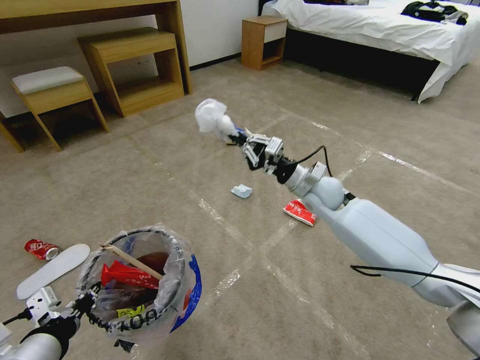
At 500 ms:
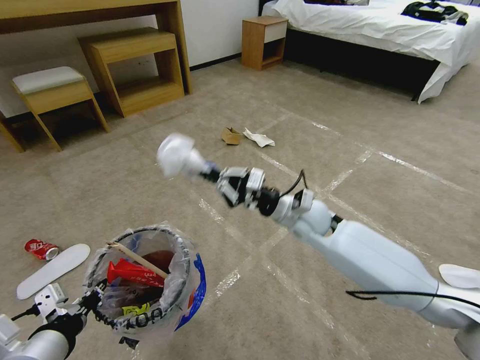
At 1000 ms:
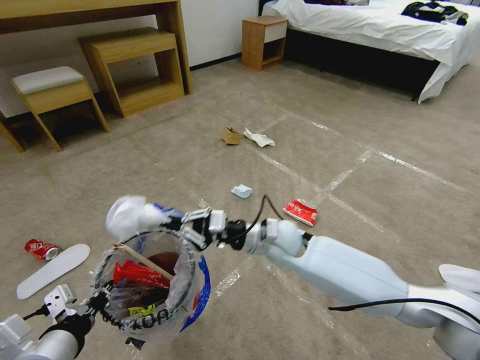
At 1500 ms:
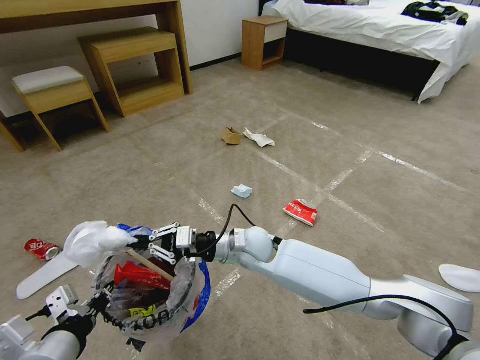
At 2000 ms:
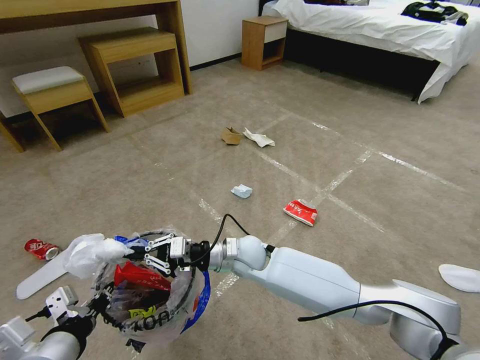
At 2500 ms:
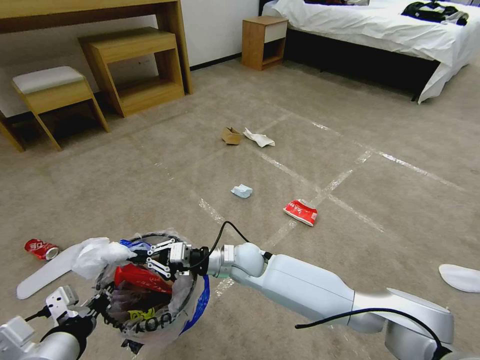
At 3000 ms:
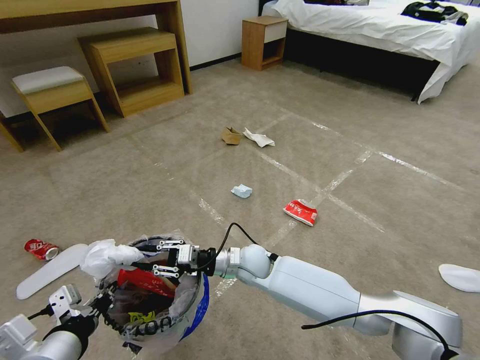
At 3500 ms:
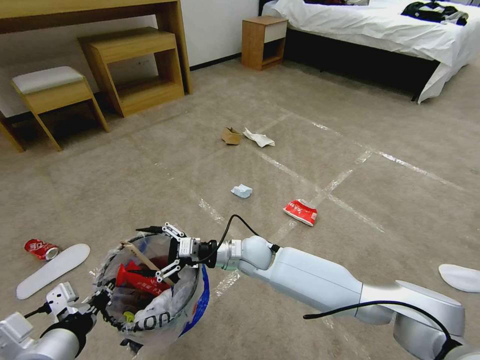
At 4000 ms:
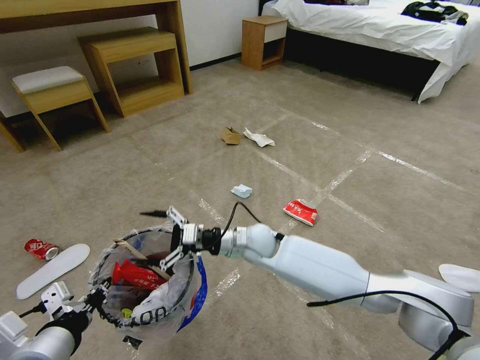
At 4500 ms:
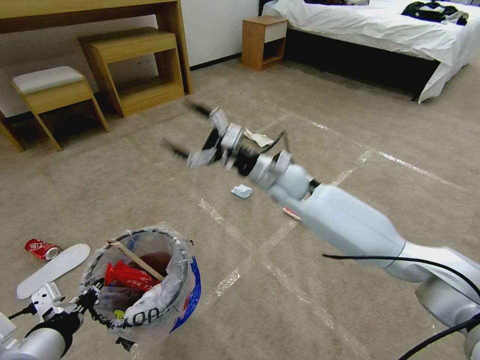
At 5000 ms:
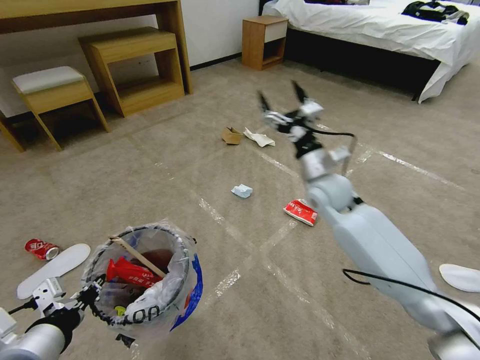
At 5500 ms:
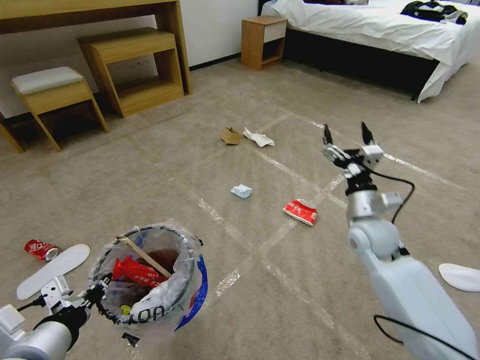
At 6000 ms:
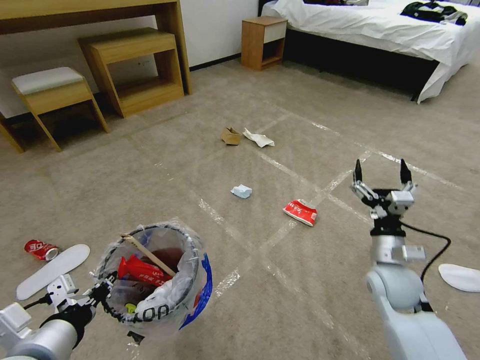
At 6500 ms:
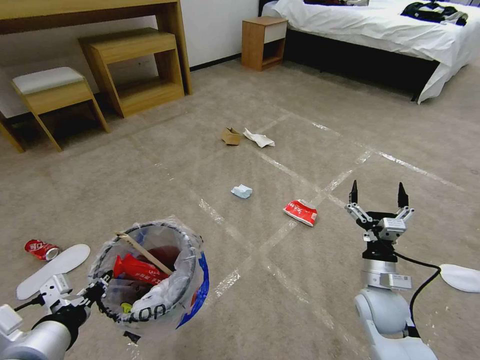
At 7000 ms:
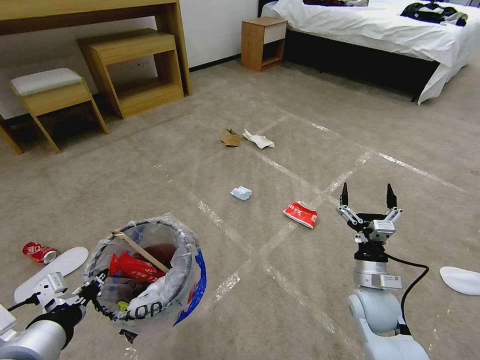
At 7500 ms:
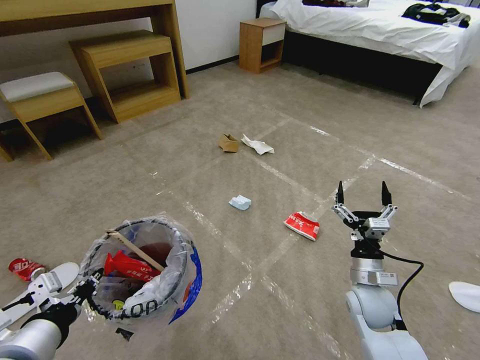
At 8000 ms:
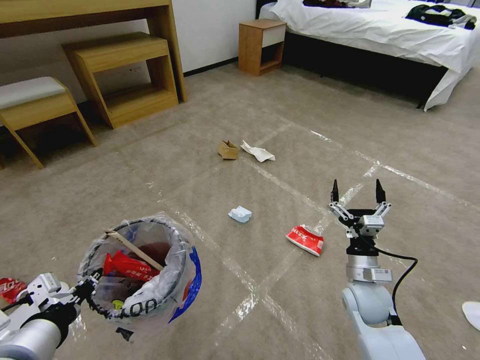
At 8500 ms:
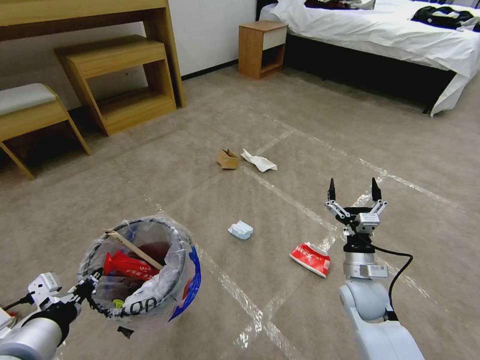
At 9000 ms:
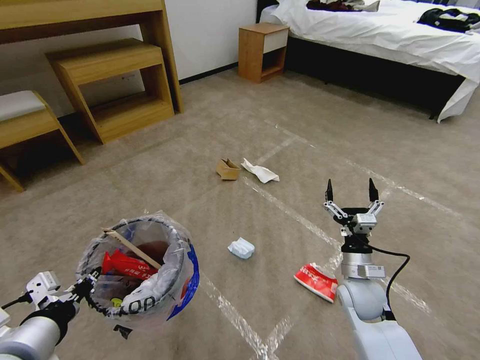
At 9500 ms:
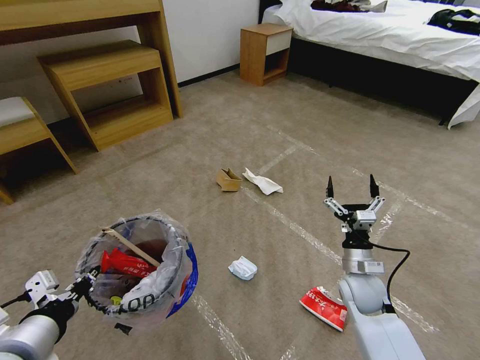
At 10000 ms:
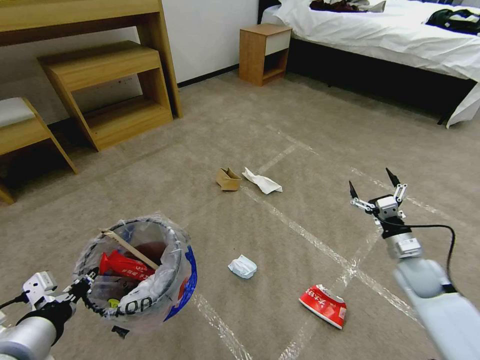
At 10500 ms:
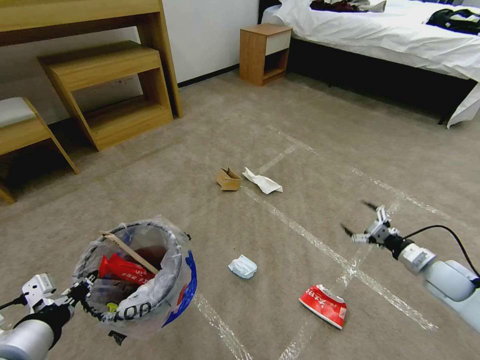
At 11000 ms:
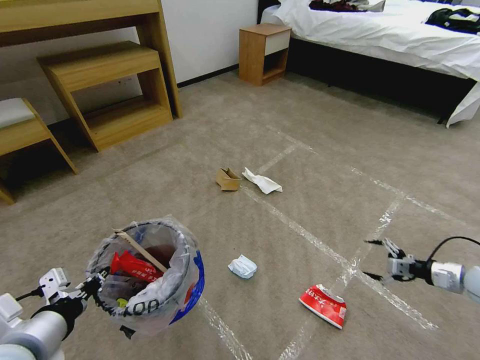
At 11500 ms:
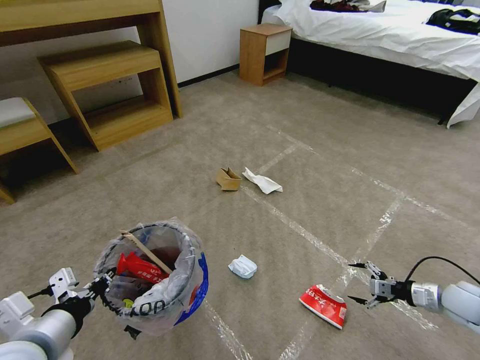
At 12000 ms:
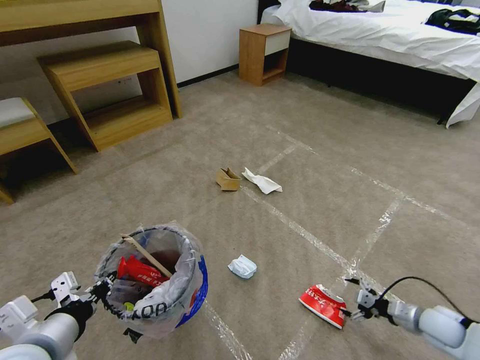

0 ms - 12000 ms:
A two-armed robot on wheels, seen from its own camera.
Task of the whole recording: Pick up the trash bin and place the garbage on the floor into it.
0 ms - 2000 ms: The right gripper travels to the left, backward and downward by approximately 25 cm.
2000 ms - 4000 ms: The right gripper opens up.
4000 ms - 6000 ms: The right gripper heads to the right, covering about 30 cm.
6000 ms - 8000 ms: The right gripper goes roughly 5 cm downward.
8000 ms - 10000 ms: The right gripper heads to the right, covering roughly 15 cm.
10000 ms - 12000 ms: The right gripper is displaced downward, backward and to the right by about 15 cm.

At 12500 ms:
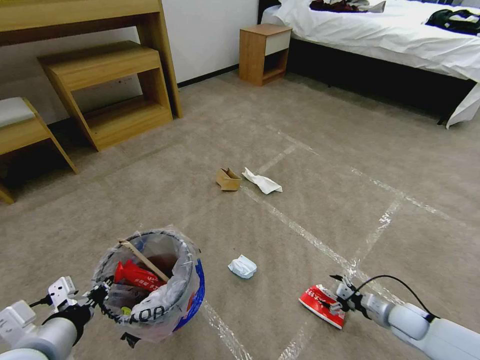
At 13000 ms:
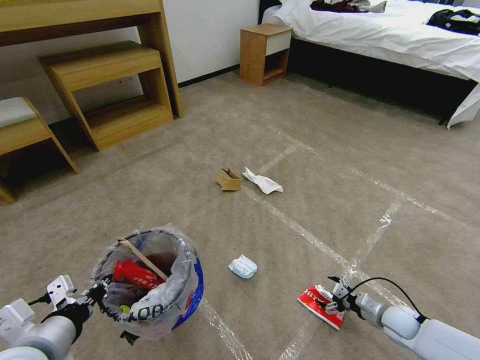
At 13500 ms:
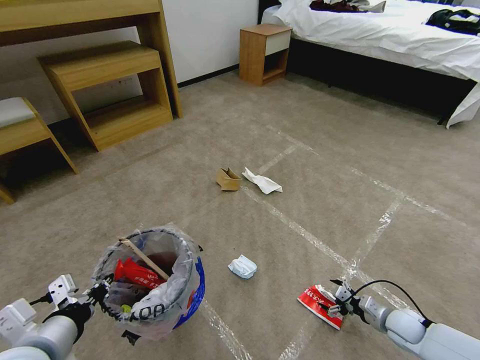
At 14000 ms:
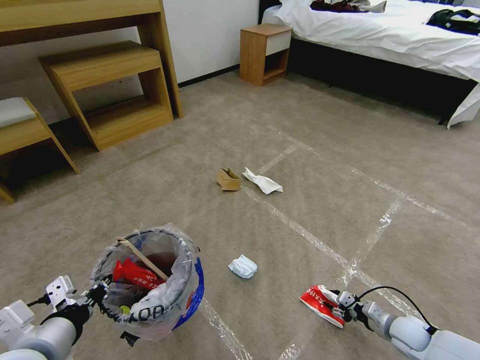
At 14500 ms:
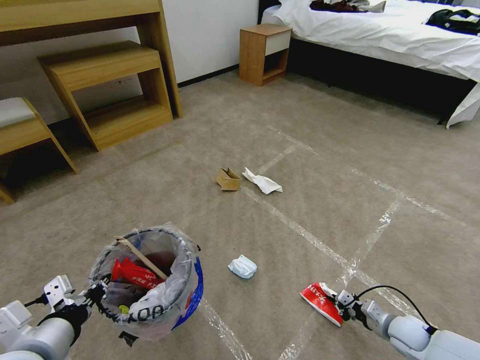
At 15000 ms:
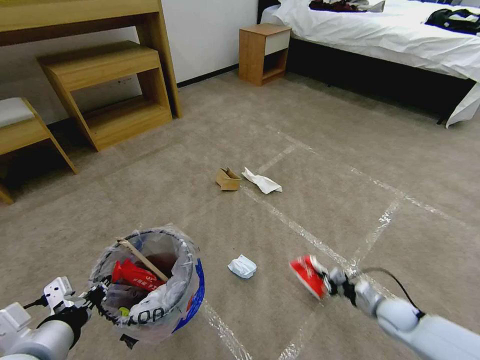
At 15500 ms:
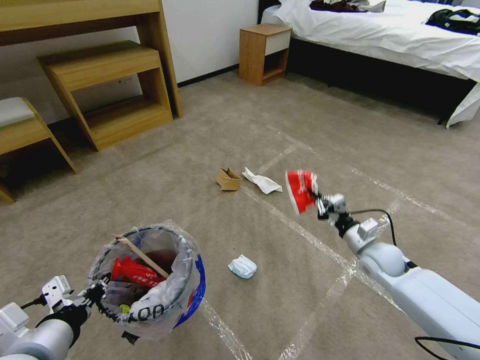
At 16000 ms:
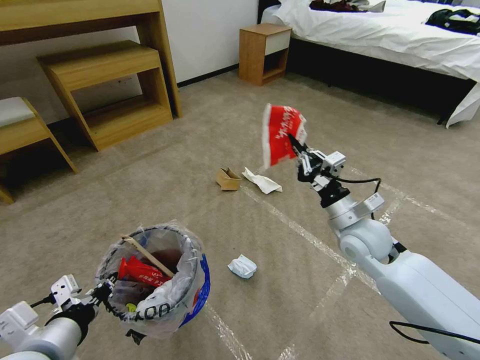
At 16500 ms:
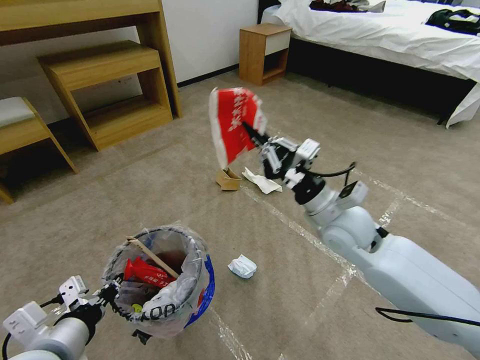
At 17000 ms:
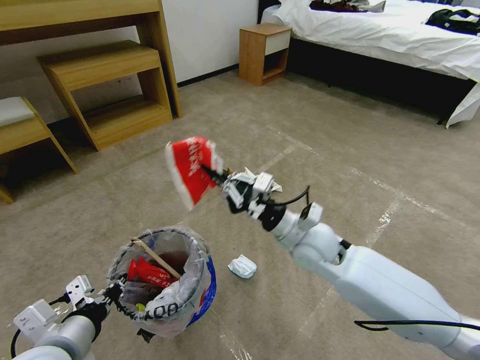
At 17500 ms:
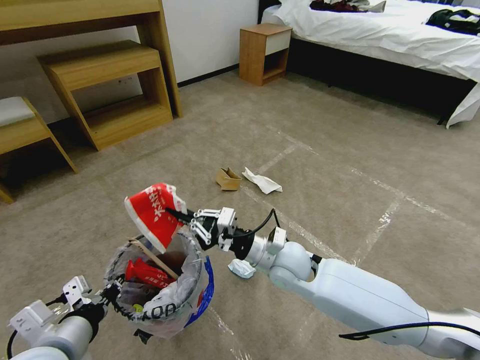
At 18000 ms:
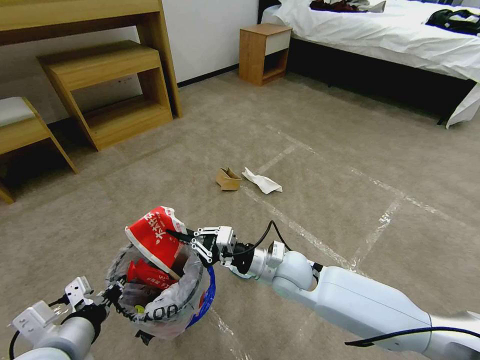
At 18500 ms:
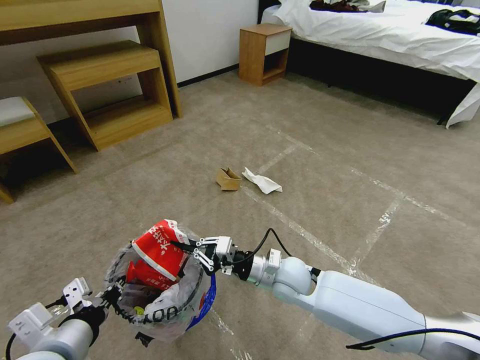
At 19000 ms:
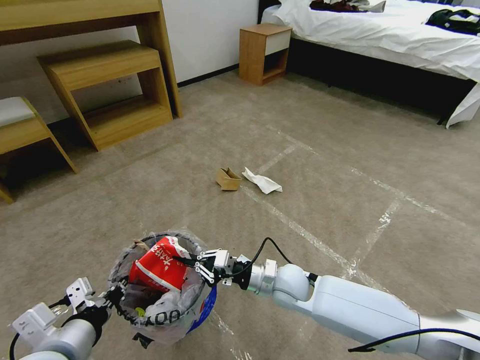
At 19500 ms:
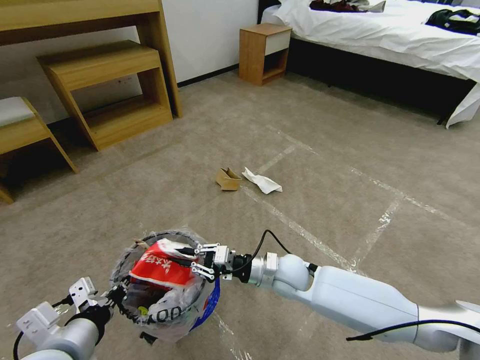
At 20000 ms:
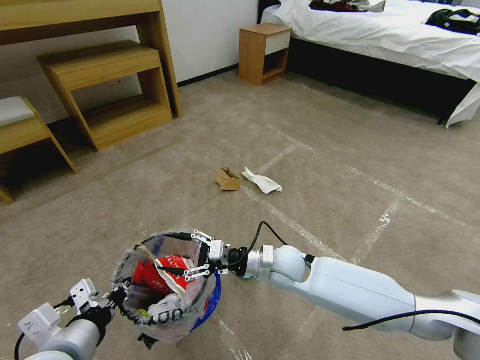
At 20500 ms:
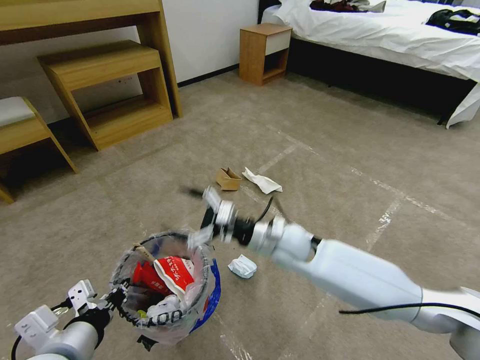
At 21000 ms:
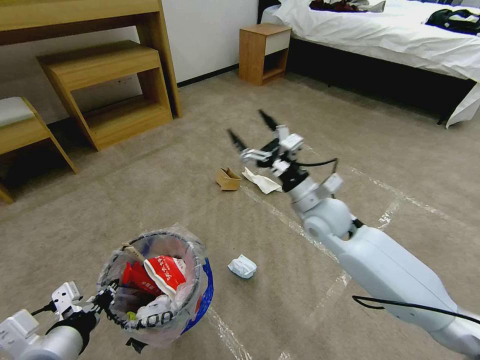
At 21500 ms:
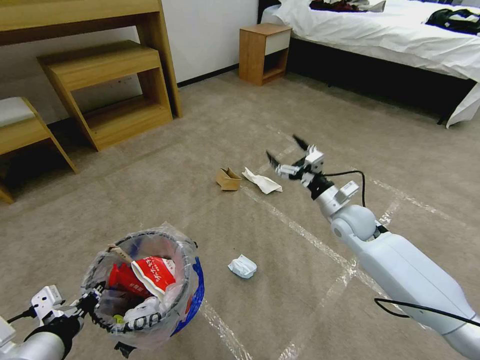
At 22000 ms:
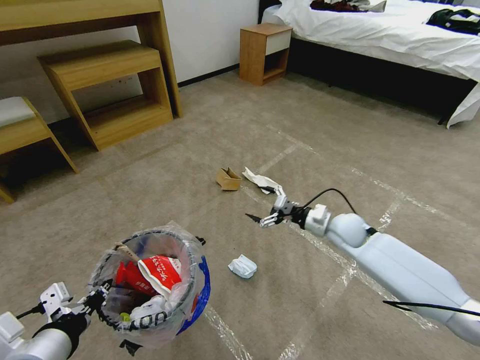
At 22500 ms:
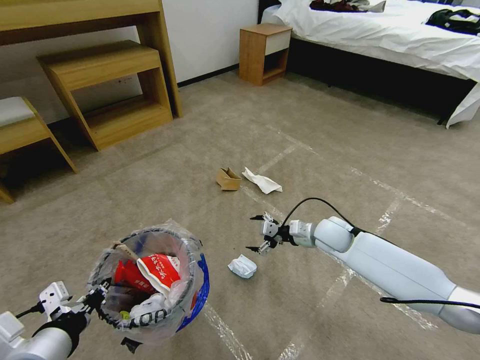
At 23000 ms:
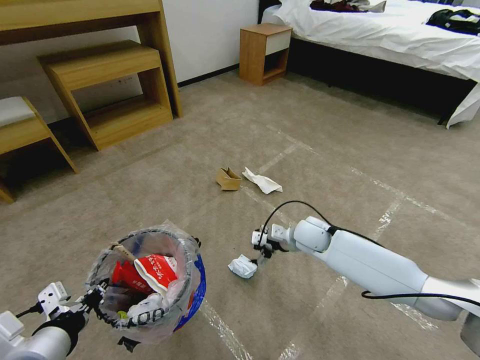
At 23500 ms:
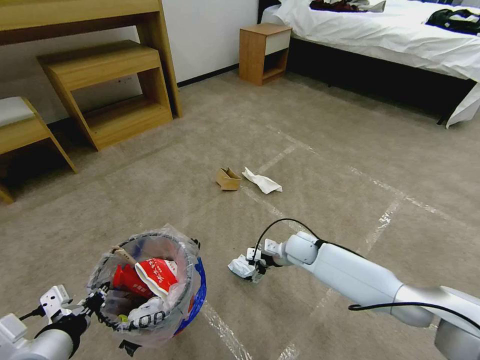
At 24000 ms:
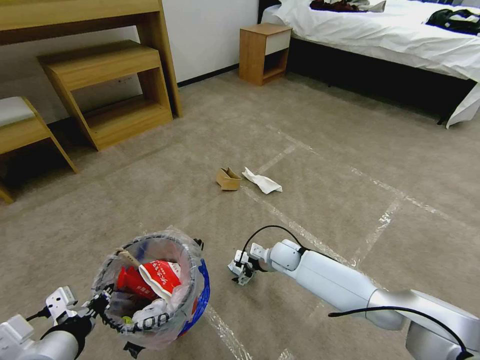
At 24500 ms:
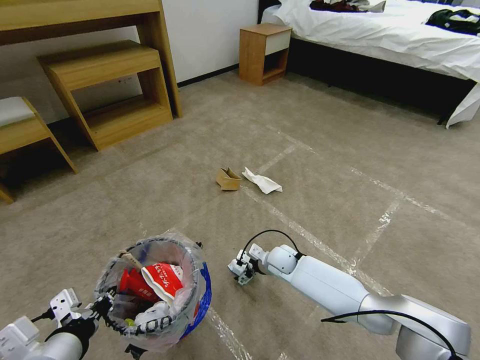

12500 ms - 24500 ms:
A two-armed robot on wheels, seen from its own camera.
Task of the whole recording: Pick up the trash bin and place the garbage on the floor into it.
12500 ms - 14500 ms: The right gripper closes its fingers.
14500 ms - 16500 ms: The right gripper goes roughly 40 cm upward and to the left.
16500 ms - 18500 ms: The right gripper is displaced downward and to the left by roughly 20 cm.
18500 ms - 20500 ms: The right gripper goes approximately 5 cm upward, and opens its fingers.
20500 ms - 22500 ms: The right gripper heads to the right and forward, covering some 15 cm.
22500 ms - 24500 ms: The right gripper heads downward and to the left, covering approximately 15 cm.

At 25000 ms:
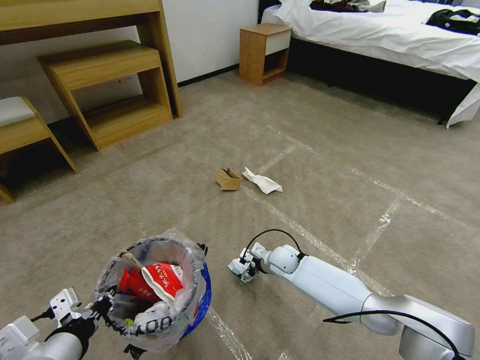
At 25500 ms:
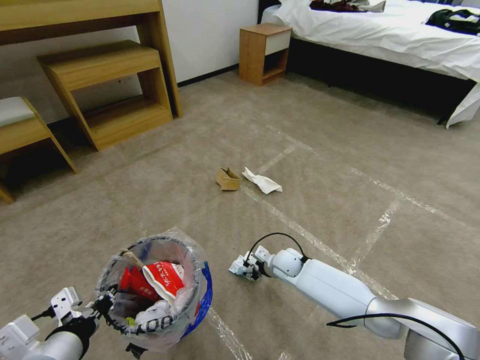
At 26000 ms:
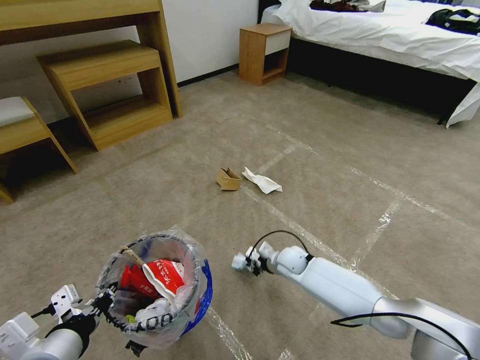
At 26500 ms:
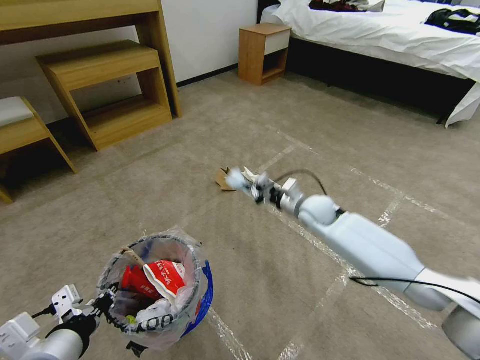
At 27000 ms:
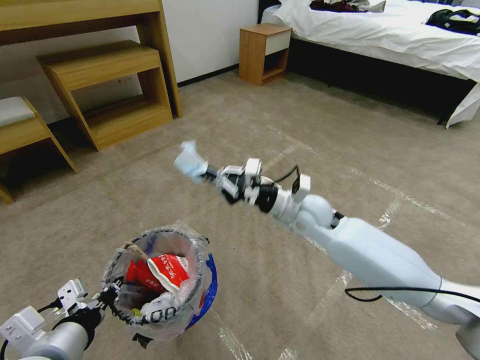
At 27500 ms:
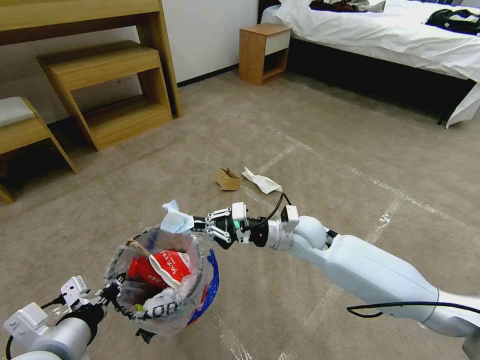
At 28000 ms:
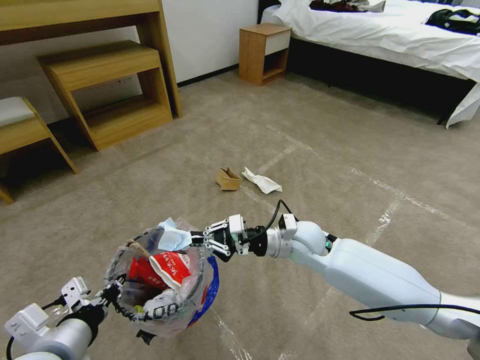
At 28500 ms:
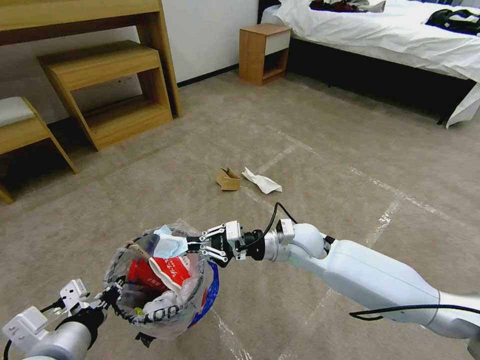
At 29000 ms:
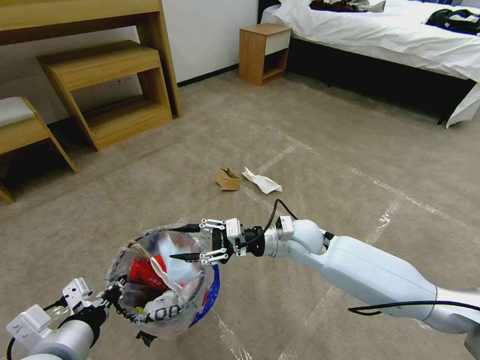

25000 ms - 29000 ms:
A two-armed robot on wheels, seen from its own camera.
Task of the whole recording: Pick up the trash bin and place the garbage on the floor into it.
25000 ms - 27000 ms: The right gripper travels upward by approximately 25 cm, and closes up.
27000 ms - 29000 ms: The right gripper heads downward, covering roughly 5 cm, and opens.
